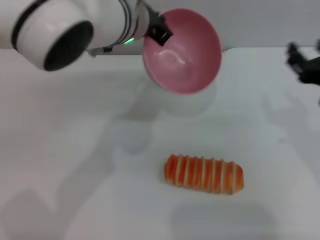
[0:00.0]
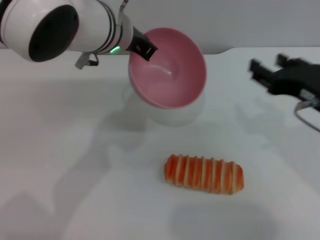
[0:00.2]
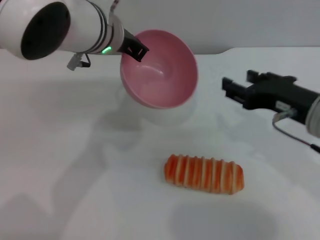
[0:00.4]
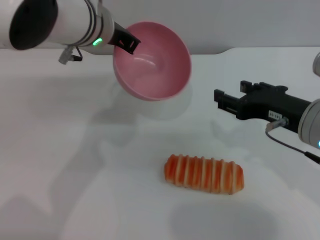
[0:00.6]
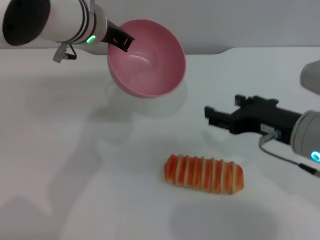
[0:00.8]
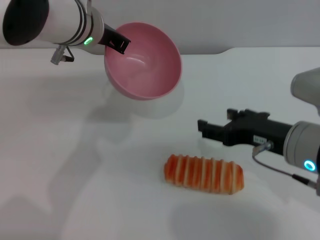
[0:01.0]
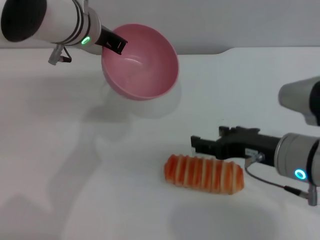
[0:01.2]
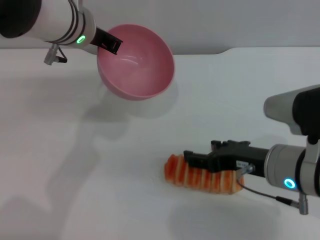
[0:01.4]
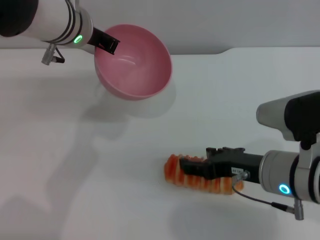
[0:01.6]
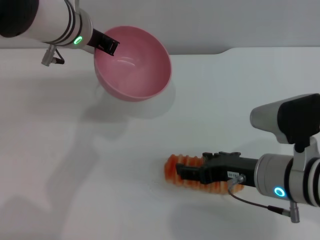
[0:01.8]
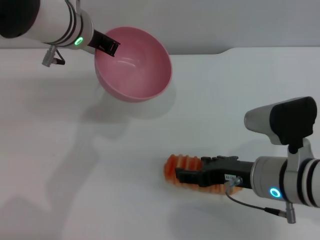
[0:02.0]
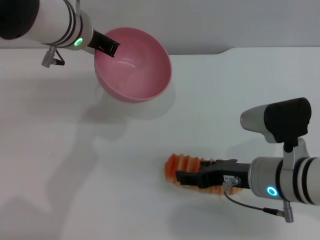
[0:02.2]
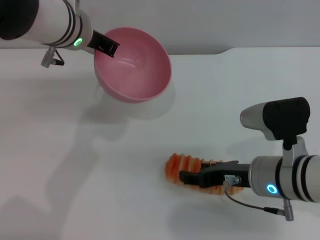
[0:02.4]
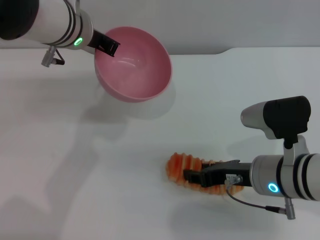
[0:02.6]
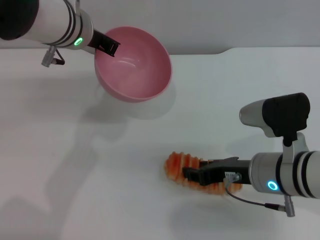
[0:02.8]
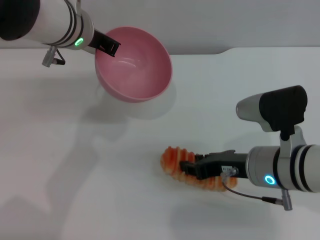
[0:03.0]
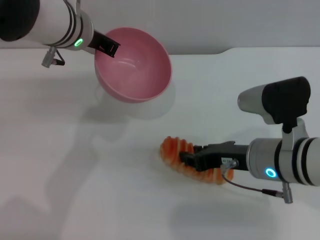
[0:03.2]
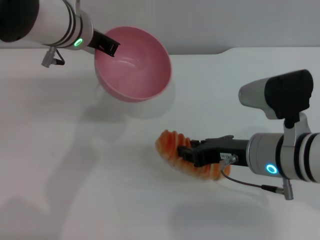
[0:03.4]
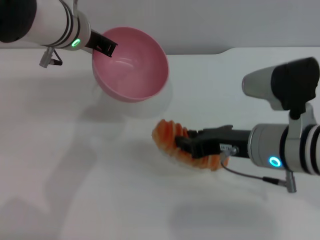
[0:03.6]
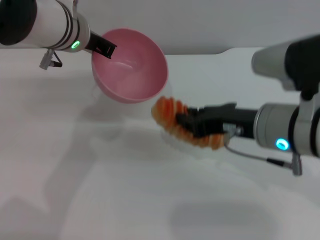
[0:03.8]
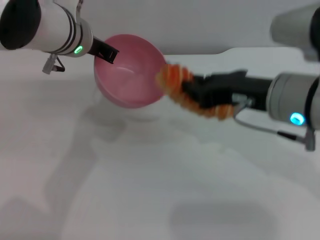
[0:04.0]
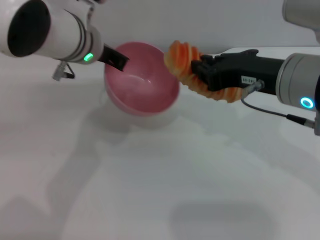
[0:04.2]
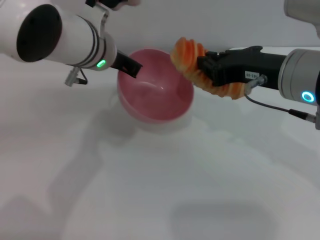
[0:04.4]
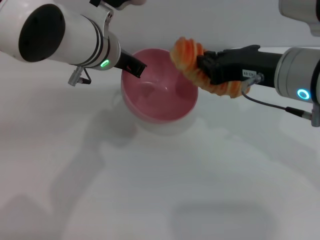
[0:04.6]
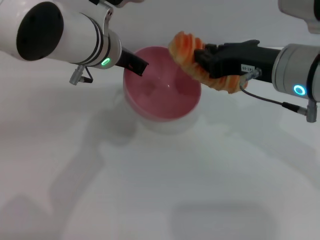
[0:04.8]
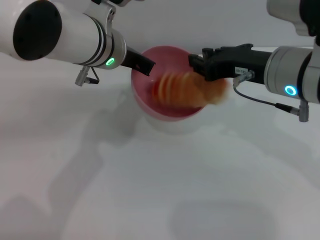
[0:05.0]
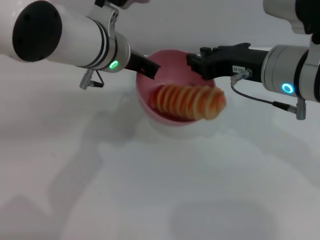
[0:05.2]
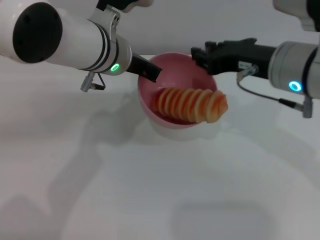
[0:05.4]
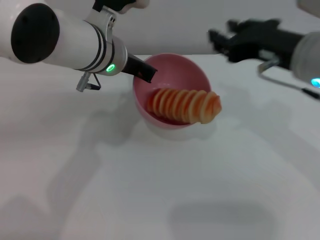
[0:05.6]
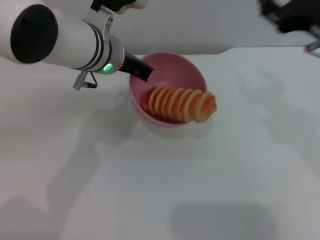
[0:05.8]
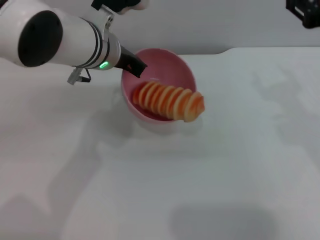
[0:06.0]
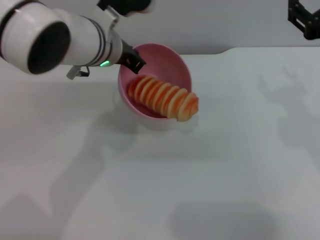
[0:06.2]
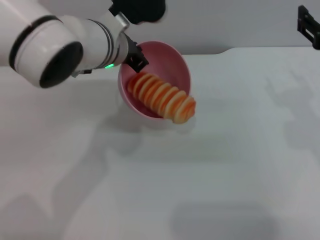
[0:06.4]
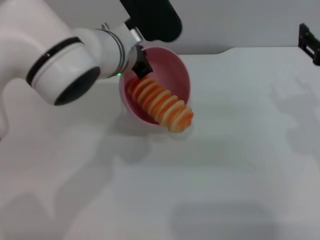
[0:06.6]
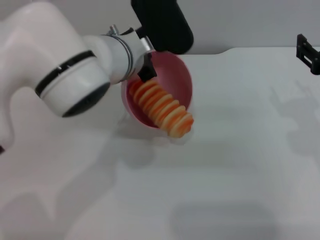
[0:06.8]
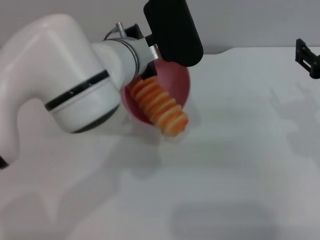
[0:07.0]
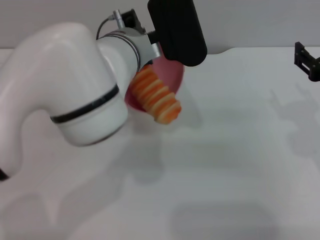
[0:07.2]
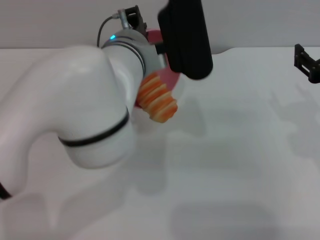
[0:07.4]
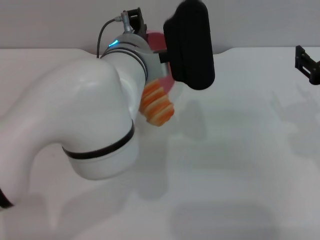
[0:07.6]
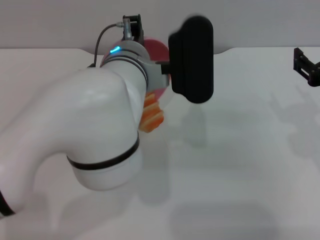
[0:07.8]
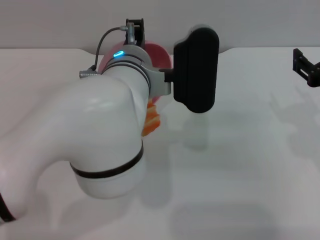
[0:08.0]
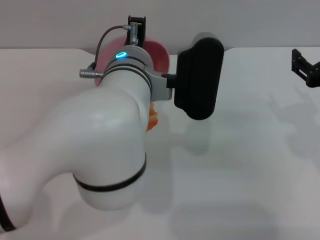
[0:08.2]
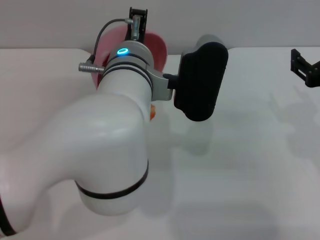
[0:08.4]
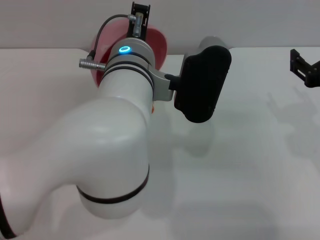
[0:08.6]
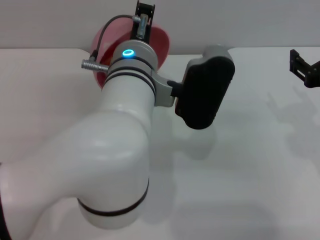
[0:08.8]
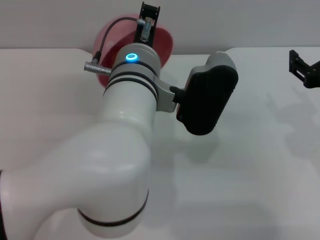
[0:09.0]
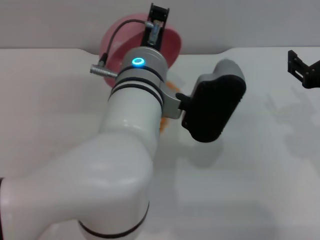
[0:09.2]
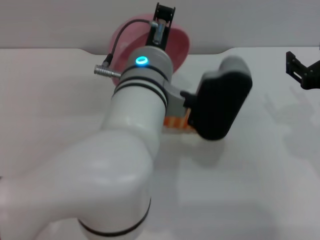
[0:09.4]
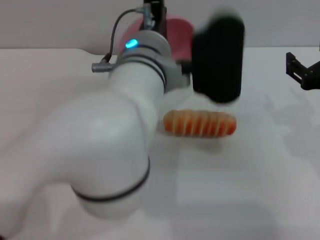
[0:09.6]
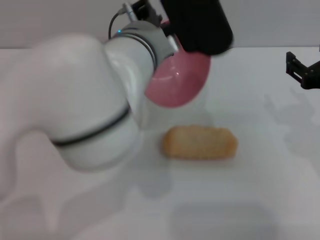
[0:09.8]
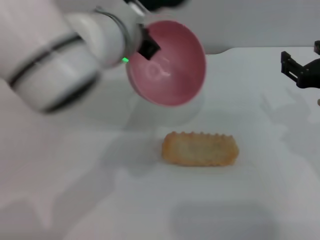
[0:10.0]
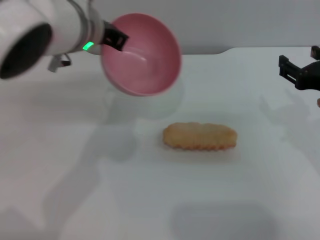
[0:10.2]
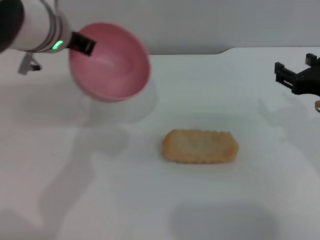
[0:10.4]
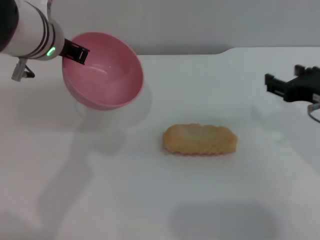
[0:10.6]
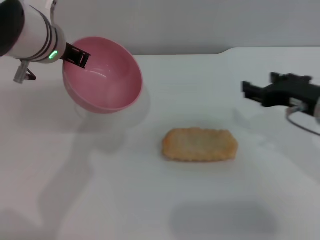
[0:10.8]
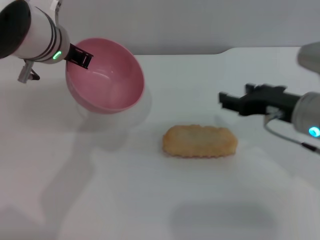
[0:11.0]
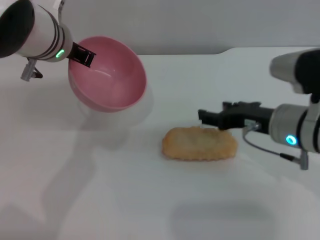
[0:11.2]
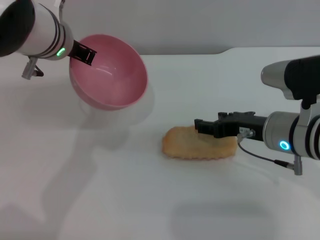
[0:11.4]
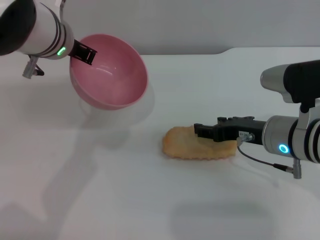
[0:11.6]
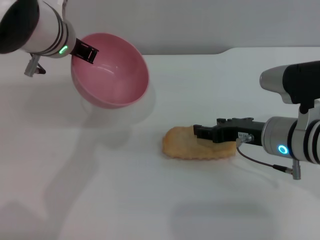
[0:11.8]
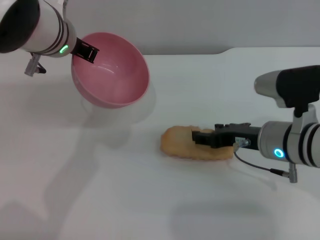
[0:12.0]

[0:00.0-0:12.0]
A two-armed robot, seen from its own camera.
Task of the whole recording: put the bread into the pink bowl and pour it out repeatedly.
Step, 0:00.0 to 0:03.6: Pick up the bread with the right gripper.
Step, 0:04.0 to 0:05.6: Place the bread into the bowl.
Step, 0:05.8 to 0:09.8: Pour the bread out of the bowl.
0:00.0 to 0:01.6: The left gripper travels to the left by roughly 5 cm, while the right gripper shifts roughly 10 cm to the left and downward.
0:01.6 to 0:03.0: The right gripper closes.
0:03.0 to 0:04.4: The right gripper goes about 10 cm upward, and closes up.
0:04.4 to 0:06.0: The right gripper is displaced to the right by some 5 cm, and opens.
0:06.0 to 0:07.6: The right gripper moves downward, roughly 5 cm; the left gripper heads to the right and backward, covering some 10 cm.
0:09.0 to 0:10.4: The left gripper moves to the left, forward and upward, roughly 15 cm.
0:10.4 to 0:12.0: The right gripper shifts roughly 10 cm to the left and downward.

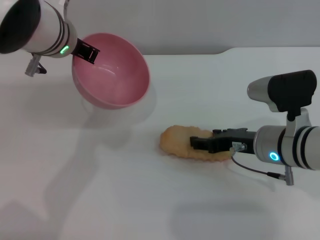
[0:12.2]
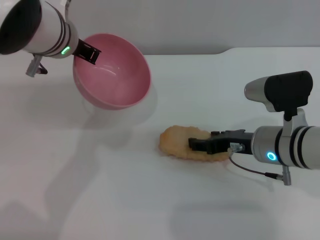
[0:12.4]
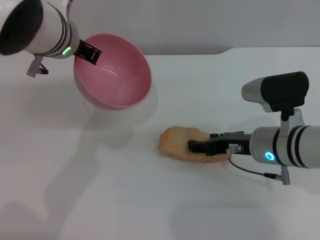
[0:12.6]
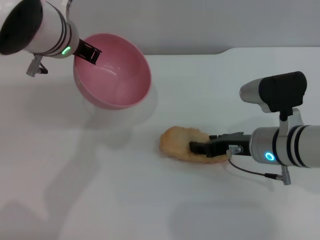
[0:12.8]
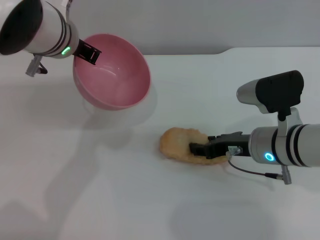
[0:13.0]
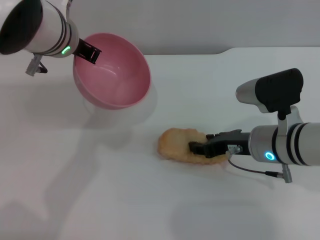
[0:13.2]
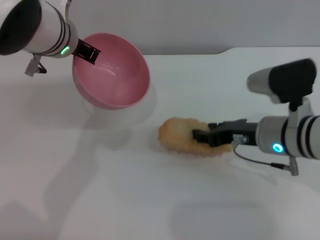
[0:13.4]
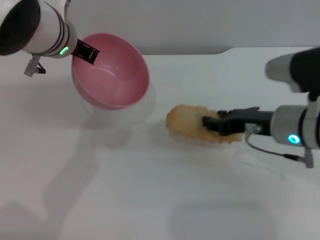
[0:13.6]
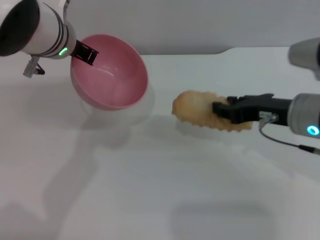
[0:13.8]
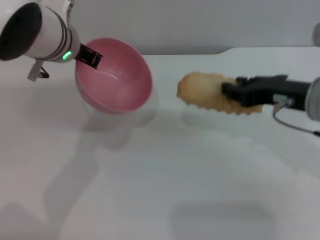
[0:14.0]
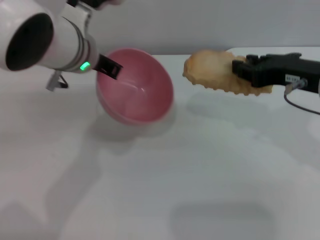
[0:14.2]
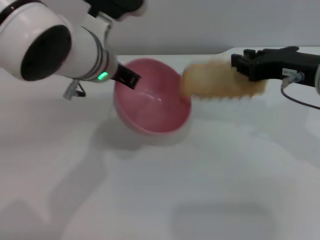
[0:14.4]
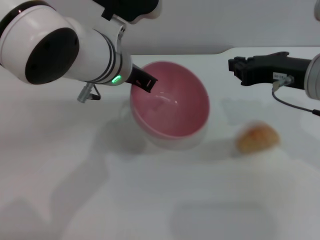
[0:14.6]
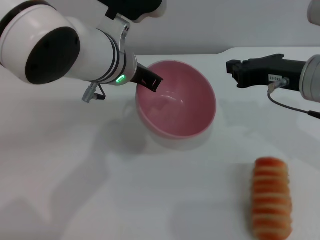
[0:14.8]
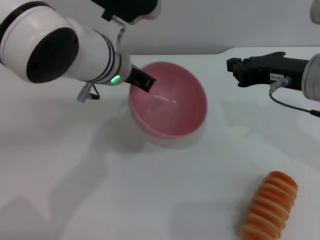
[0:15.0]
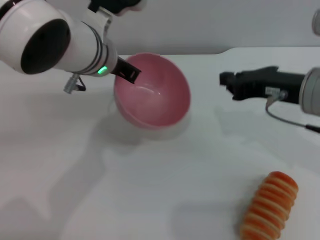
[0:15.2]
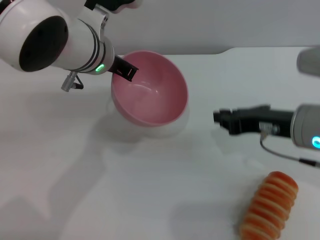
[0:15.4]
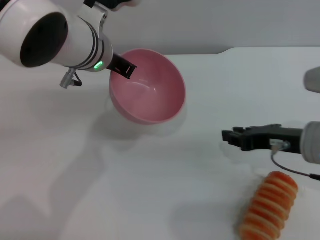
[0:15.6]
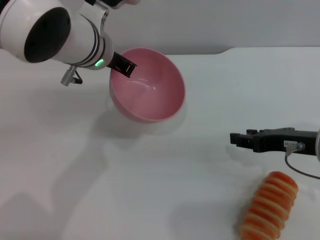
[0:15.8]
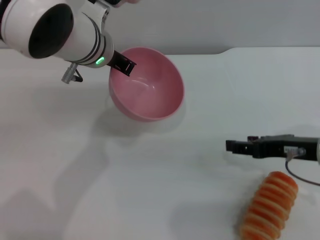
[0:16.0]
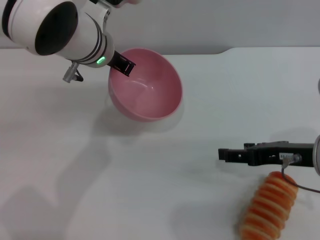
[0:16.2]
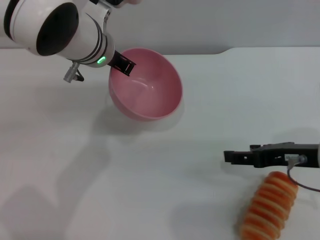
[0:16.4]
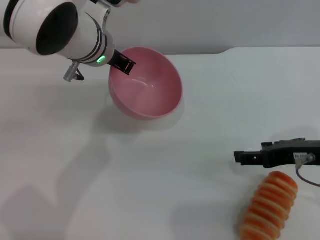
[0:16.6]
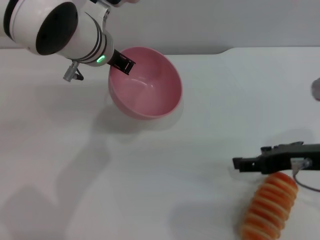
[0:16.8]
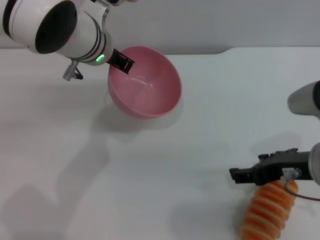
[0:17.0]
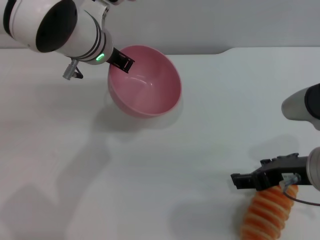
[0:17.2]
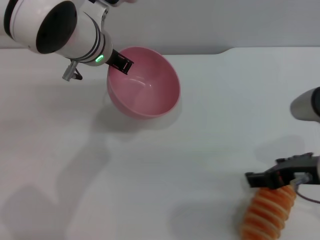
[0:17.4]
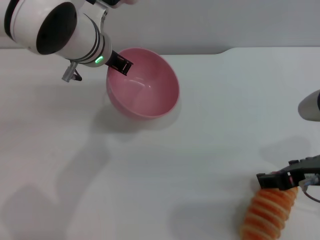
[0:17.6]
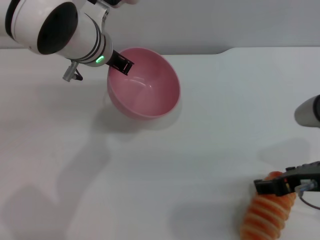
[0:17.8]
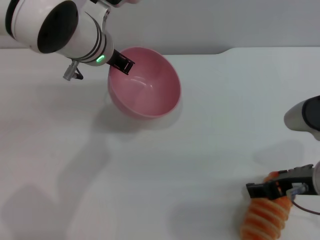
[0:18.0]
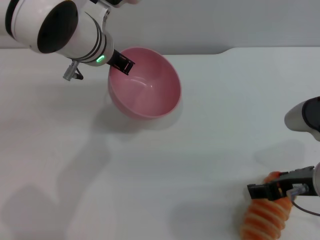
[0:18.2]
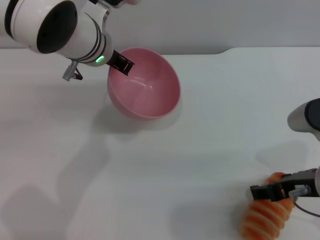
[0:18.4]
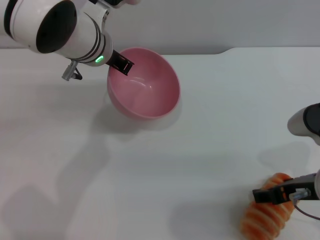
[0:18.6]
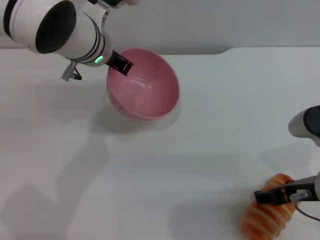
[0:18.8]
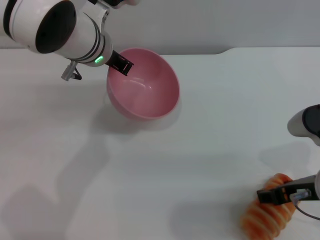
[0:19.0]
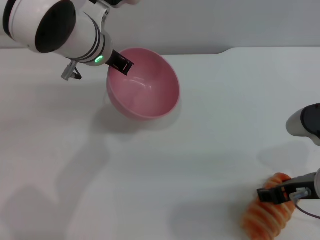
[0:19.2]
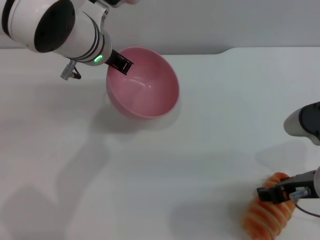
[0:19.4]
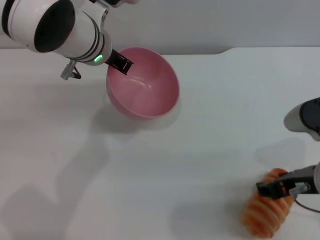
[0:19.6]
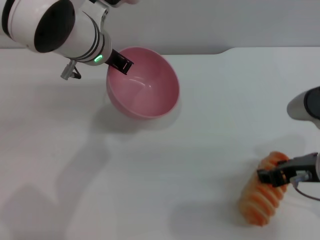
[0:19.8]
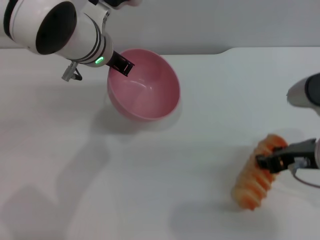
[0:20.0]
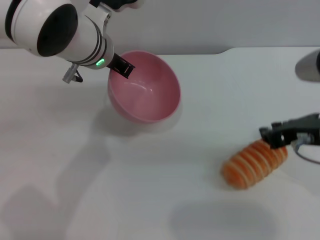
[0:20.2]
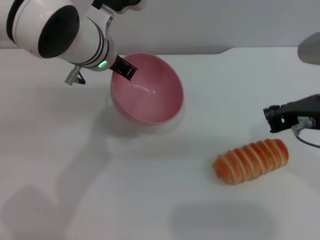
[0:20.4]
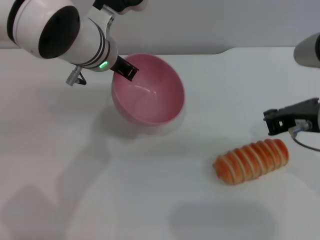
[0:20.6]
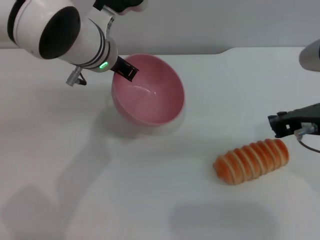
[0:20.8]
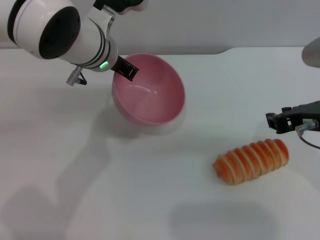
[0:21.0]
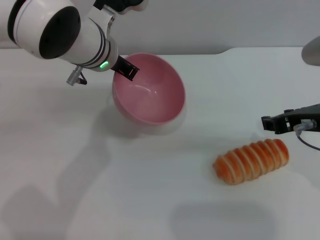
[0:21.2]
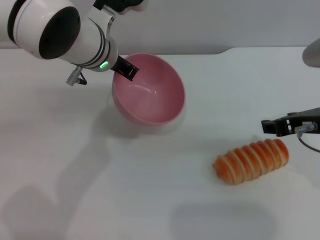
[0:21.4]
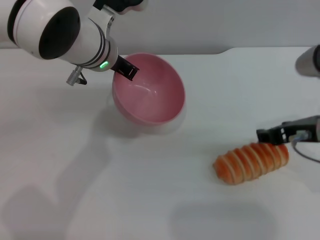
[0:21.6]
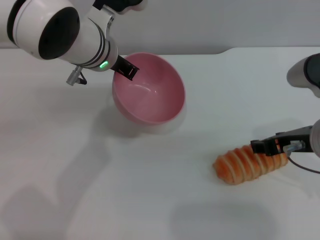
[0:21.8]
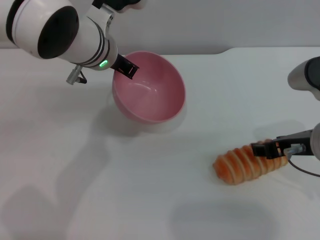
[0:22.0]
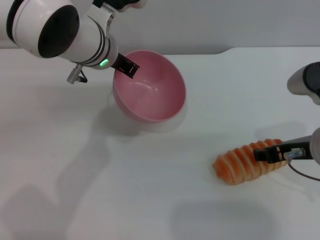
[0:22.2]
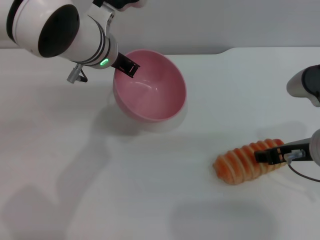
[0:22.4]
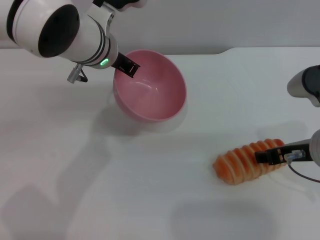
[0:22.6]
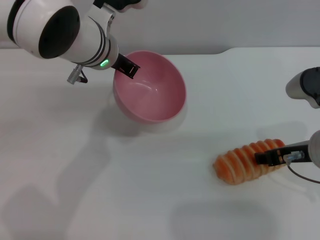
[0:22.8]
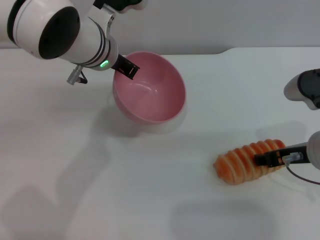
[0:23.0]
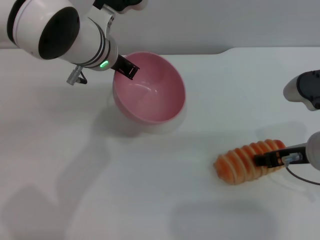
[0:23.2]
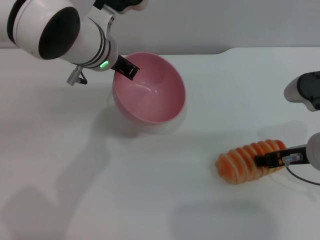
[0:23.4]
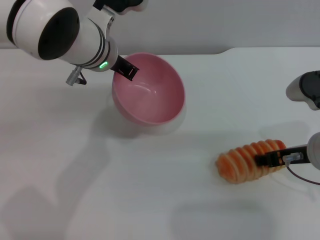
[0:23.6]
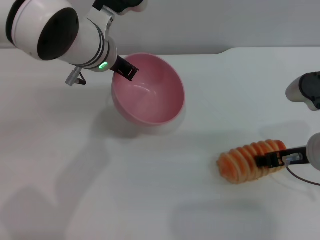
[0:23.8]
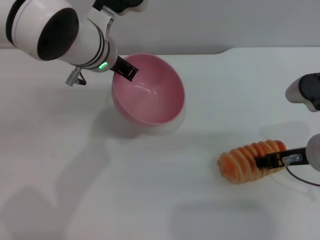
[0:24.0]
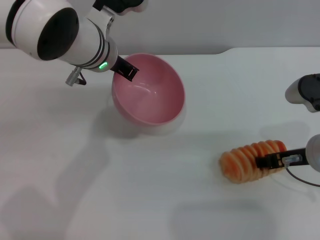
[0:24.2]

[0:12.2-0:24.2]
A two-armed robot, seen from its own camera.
Task of the whole recording: put the bread into the pink bowl and pour it out repeatedly.
0:12.2 to 0:13.8: The right gripper is displaced upward by about 5 cm.
0:13.8 to 0:15.2: The right gripper closes.
0:15.2 to 0:16.6: The right gripper shifts by approximately 5 cm, and opens.
0:16.6 to 0:18.2: The grippers make only small movements.
0:18.2 to 0:19.8: There are only small adjustments of the grippers.
0:19.8 to 0:21.2: The right gripper changes place by roughly 5 cm, and closes, then reopens.
0:21.2 to 0:22.6: There are only small adjustments of the grippers.
0:22.6 to 0:24.2: There are only small adjustments of the grippers.
